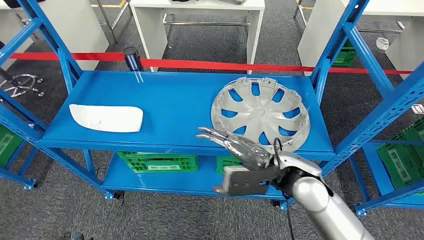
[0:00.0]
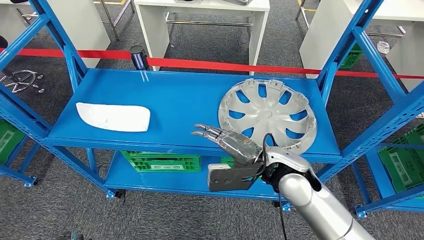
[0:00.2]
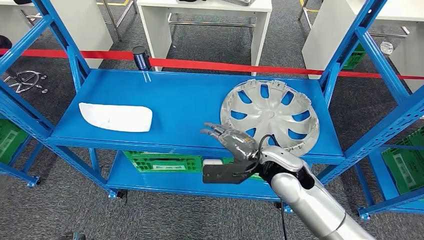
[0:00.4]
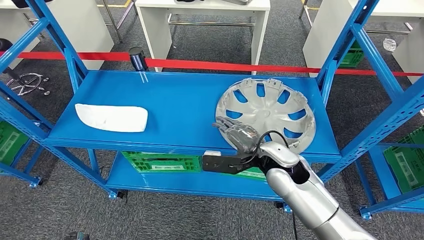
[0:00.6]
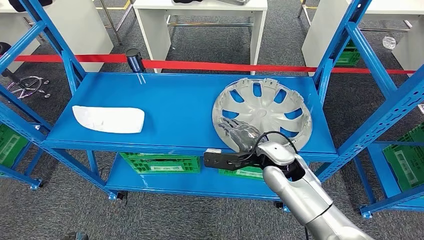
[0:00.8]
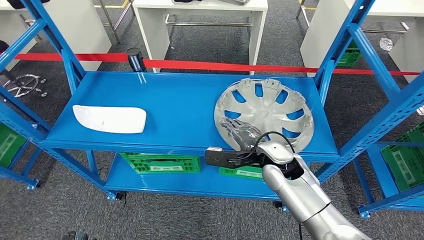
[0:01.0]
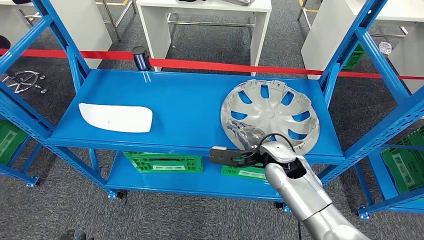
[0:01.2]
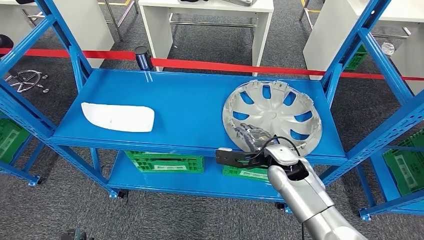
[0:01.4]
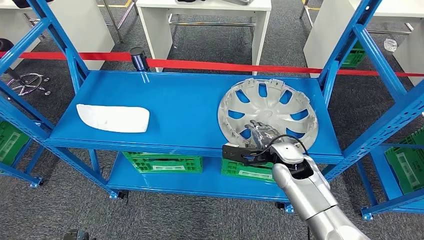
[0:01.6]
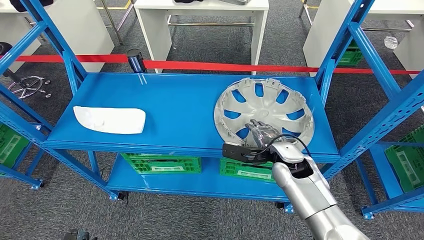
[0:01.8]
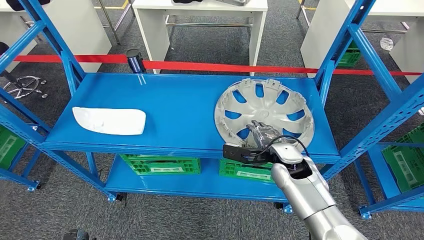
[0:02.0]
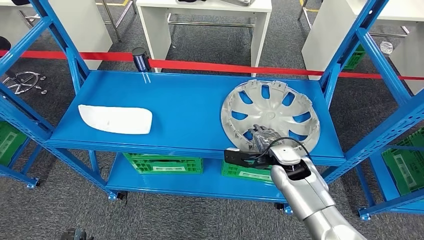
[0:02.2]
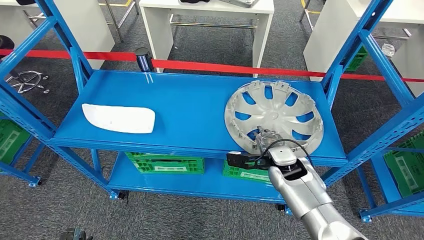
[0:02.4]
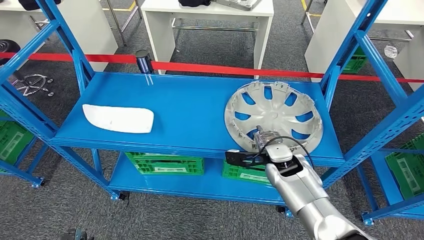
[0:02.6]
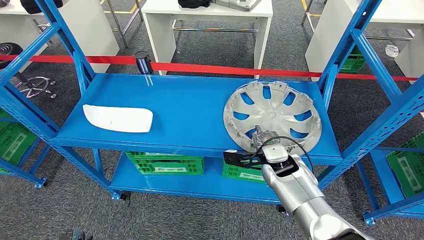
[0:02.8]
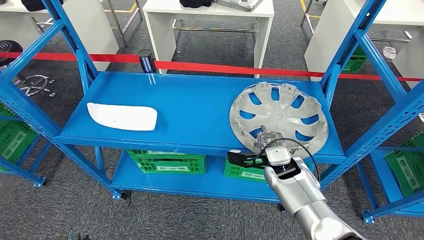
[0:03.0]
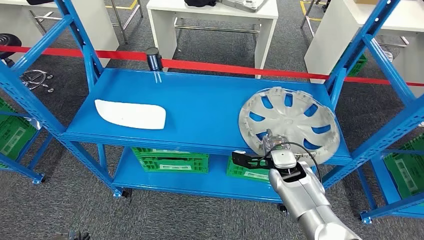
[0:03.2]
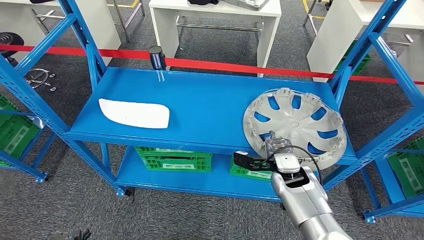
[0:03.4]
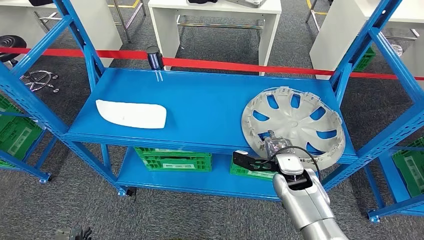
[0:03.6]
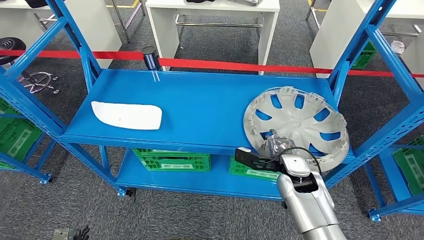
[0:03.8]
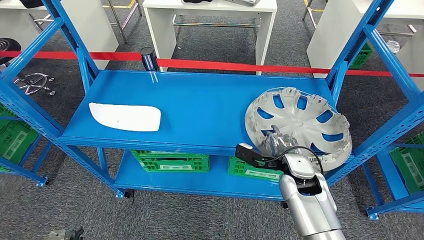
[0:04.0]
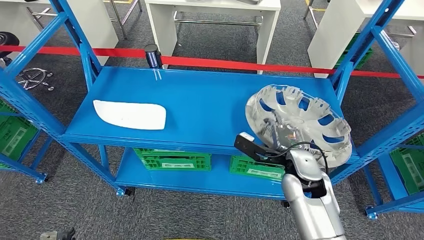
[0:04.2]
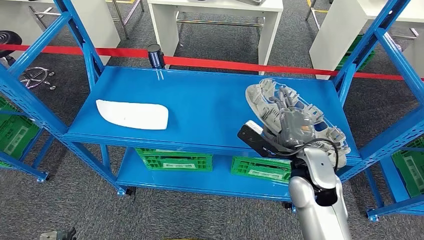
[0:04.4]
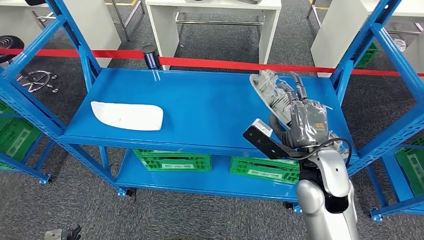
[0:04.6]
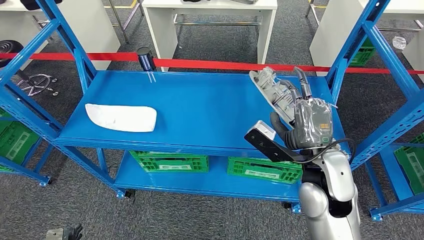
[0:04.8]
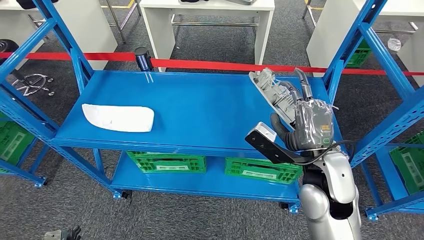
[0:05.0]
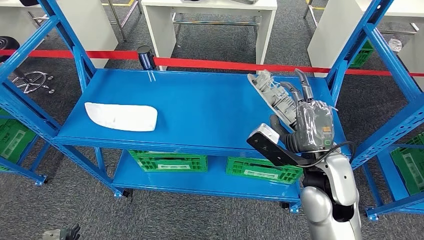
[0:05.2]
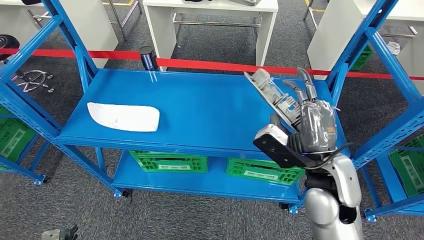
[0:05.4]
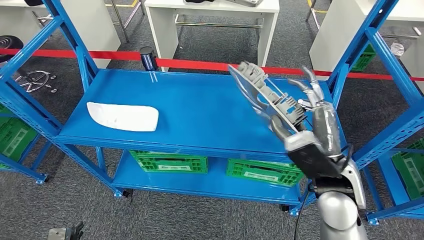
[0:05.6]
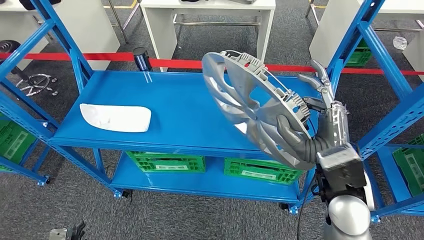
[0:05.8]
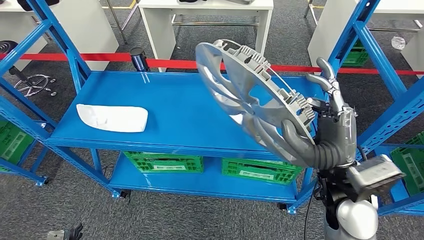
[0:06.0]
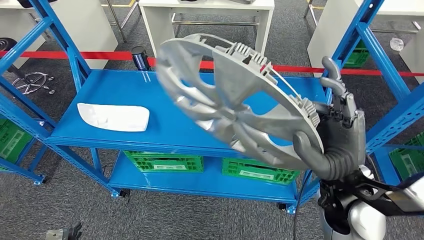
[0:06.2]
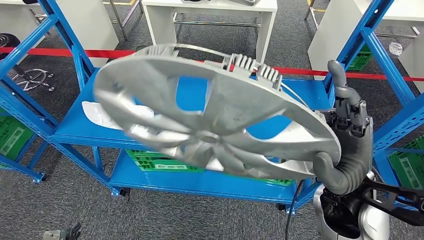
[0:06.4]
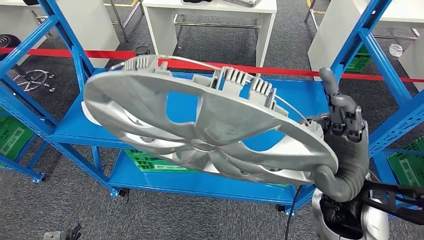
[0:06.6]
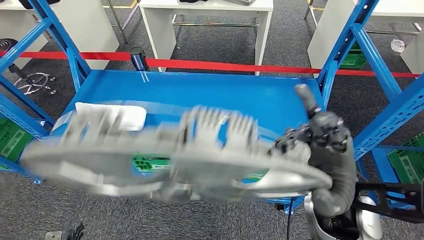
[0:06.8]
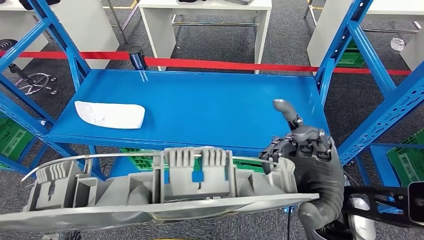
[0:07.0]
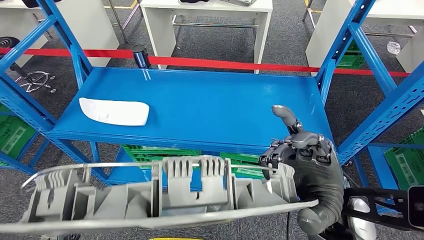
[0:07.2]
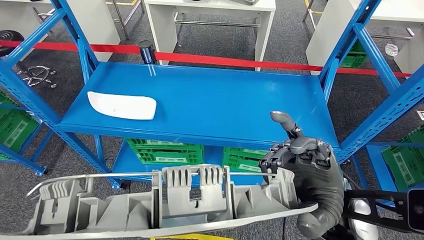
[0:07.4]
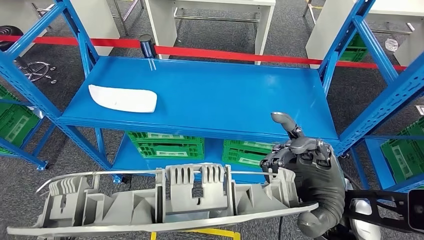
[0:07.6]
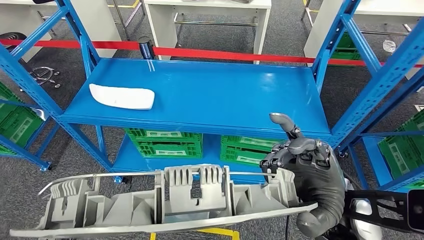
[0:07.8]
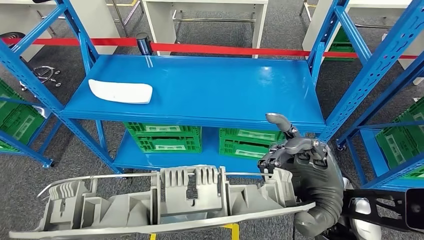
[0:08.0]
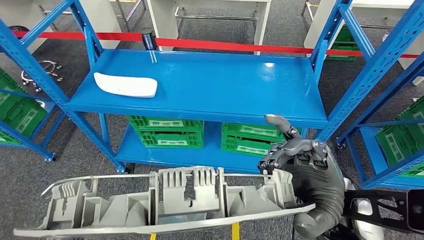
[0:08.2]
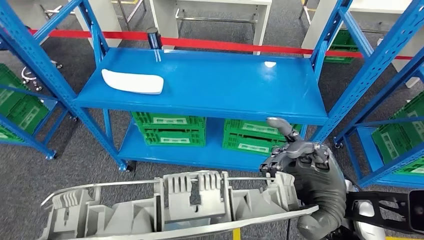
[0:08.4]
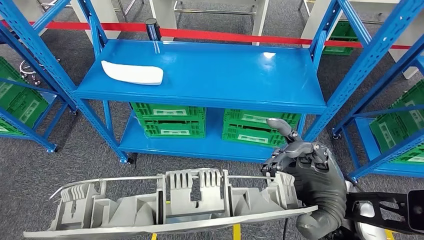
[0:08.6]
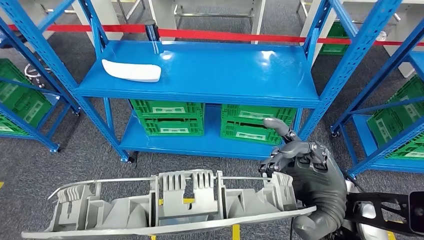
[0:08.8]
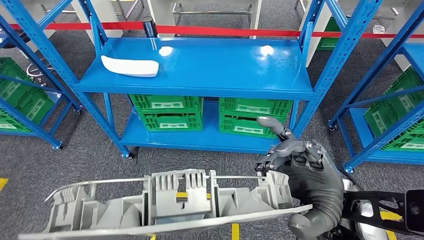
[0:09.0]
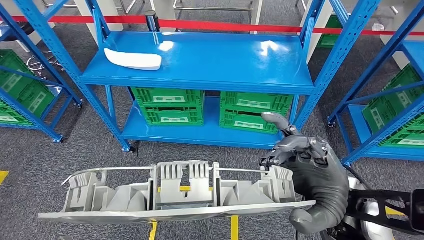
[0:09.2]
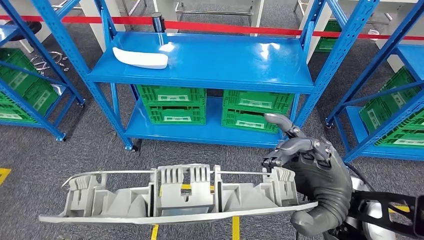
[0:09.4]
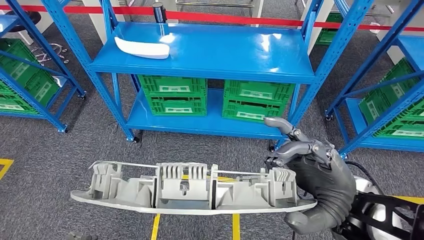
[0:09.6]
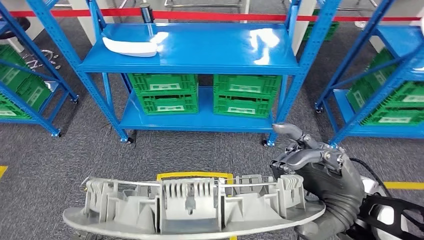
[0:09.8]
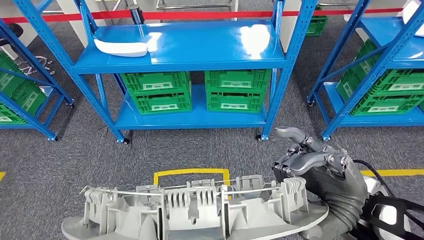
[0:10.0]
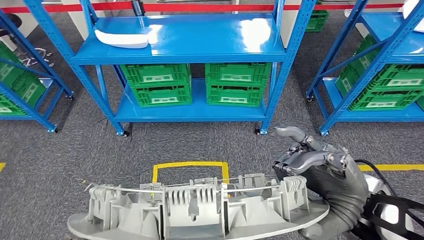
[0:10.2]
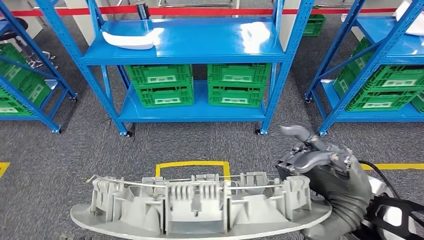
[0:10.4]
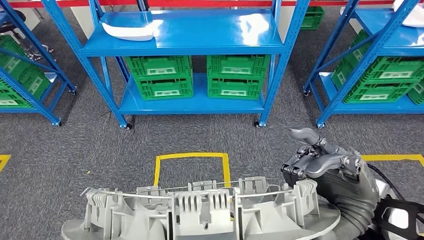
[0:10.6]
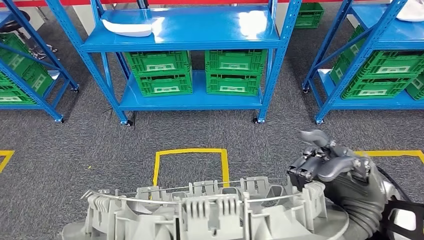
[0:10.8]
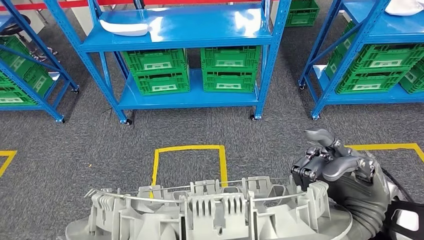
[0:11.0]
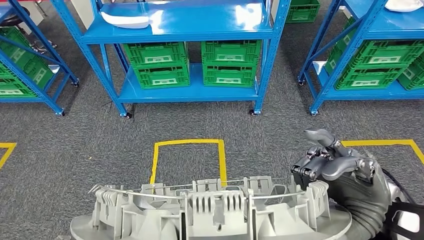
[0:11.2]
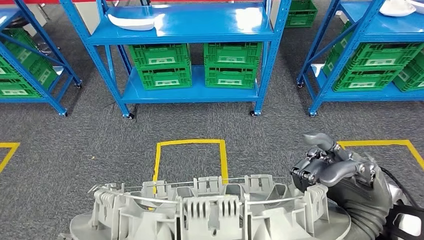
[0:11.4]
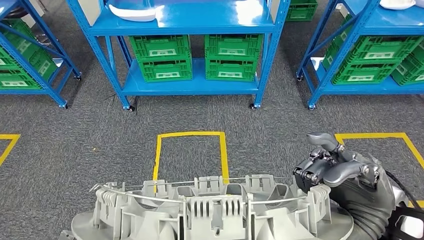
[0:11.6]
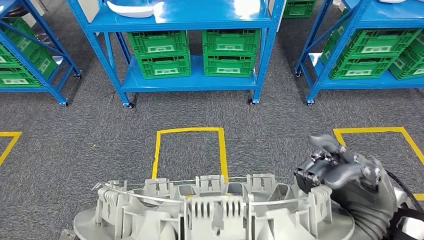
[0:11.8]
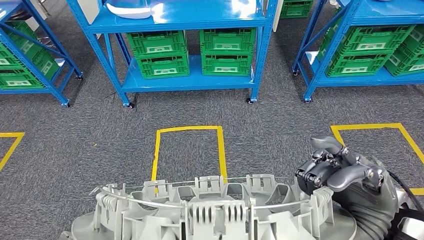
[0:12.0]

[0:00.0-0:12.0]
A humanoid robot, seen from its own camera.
Step, 0:00.0 to 0:05.6: Pick up the small component from the shelf.

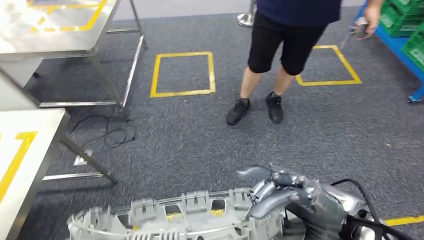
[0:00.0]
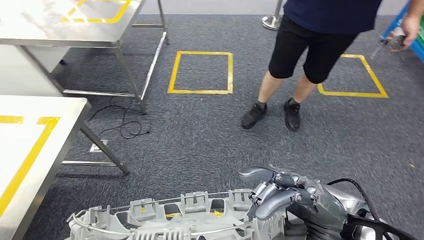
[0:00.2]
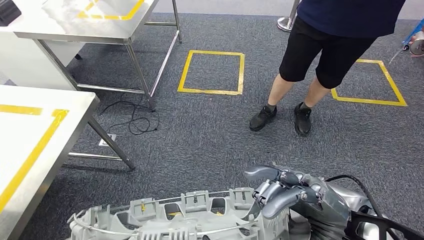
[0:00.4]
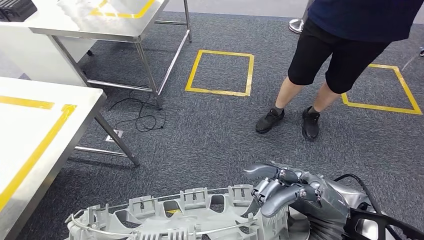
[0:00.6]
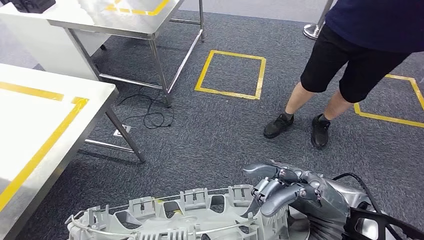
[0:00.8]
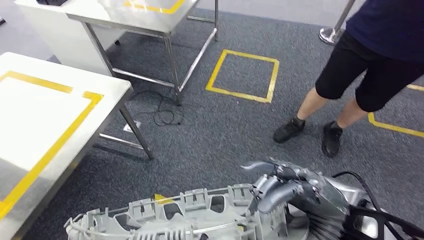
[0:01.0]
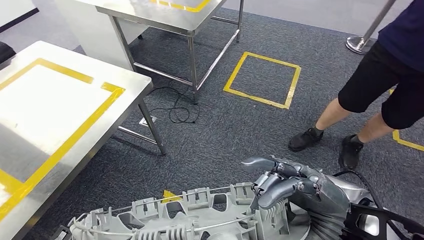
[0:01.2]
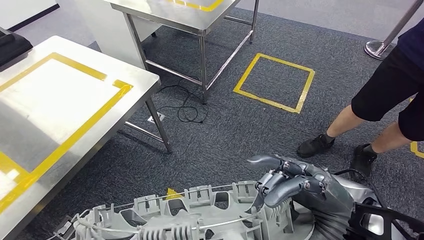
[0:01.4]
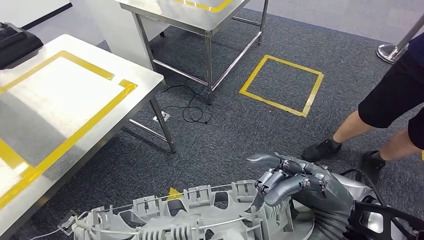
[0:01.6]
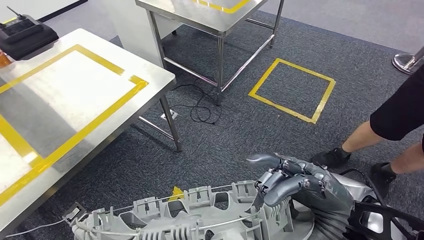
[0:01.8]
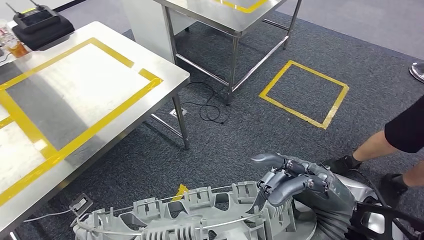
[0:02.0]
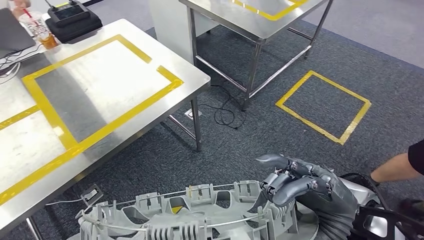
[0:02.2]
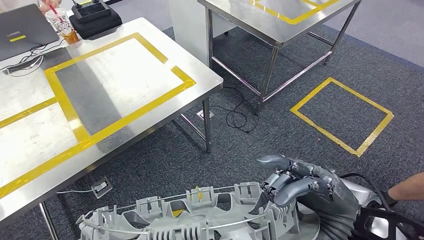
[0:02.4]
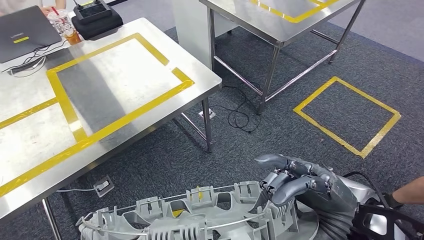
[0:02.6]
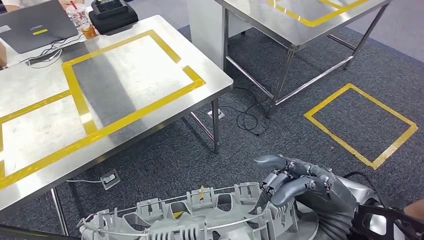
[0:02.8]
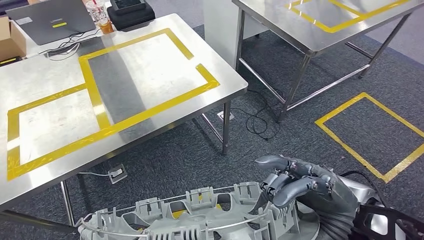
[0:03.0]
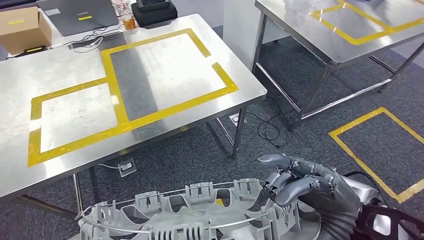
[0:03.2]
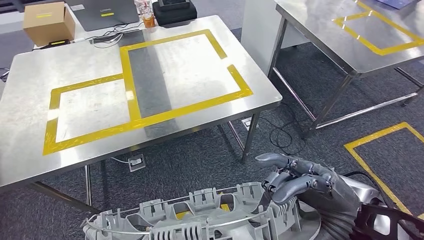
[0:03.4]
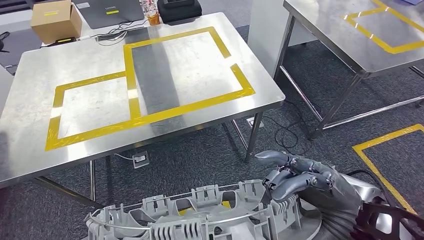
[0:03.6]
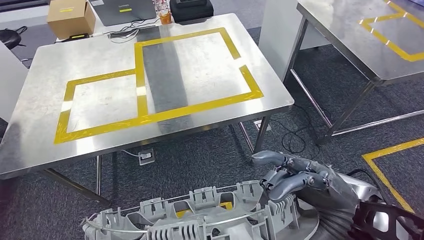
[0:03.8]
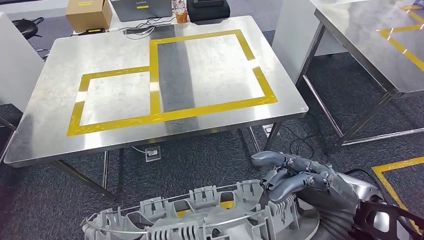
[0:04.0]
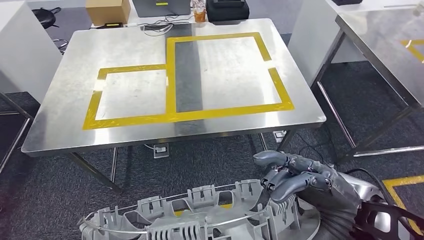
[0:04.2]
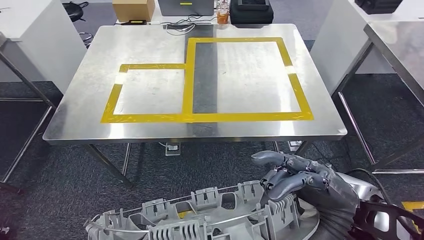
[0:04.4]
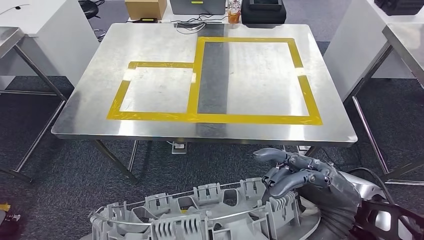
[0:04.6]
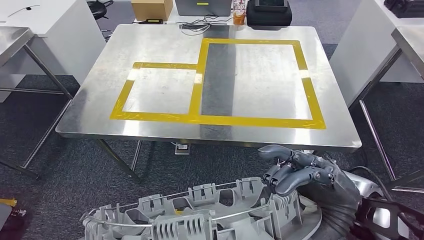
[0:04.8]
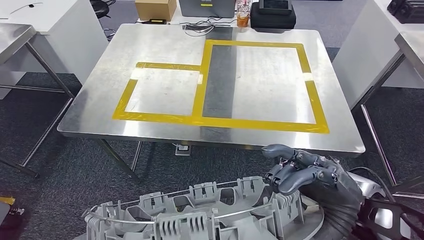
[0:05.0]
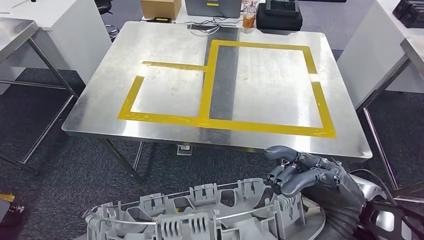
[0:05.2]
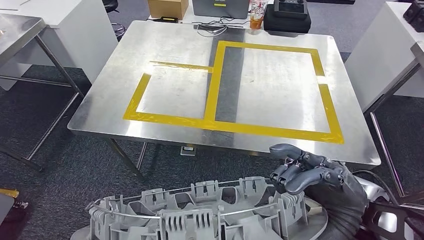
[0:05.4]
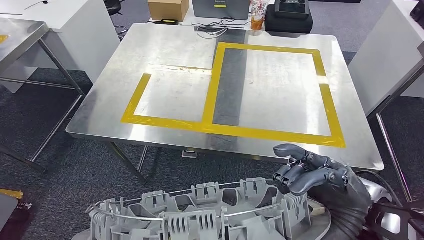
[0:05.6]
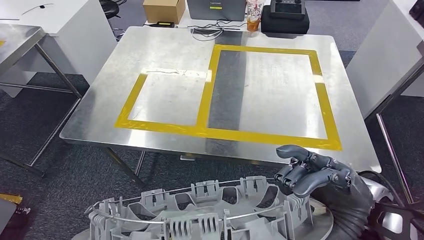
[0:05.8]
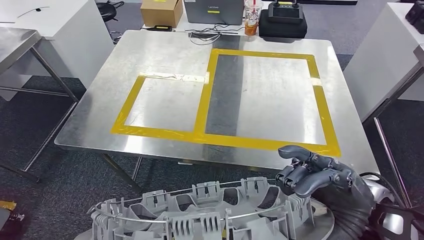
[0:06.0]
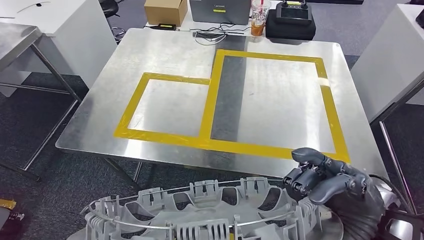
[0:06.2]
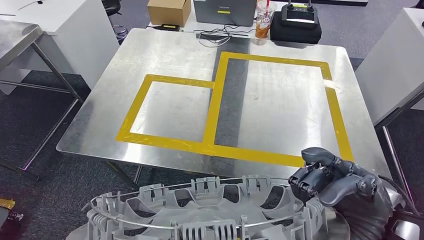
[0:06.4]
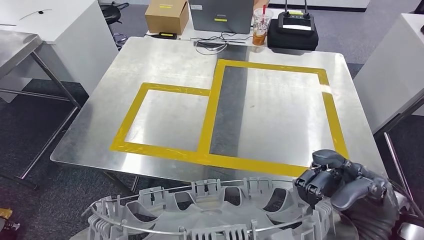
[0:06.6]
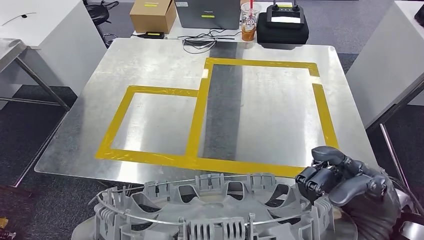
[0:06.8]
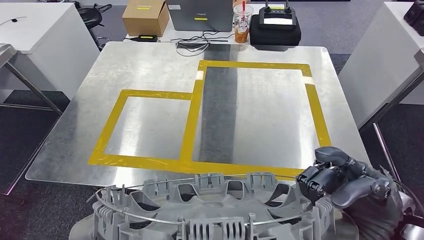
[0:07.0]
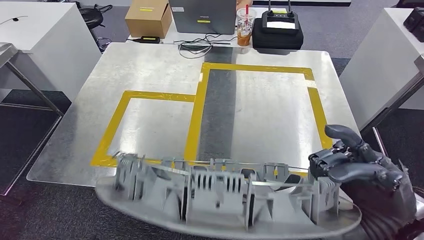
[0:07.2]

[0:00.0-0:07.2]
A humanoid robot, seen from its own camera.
Step, 0:00.0 to 0:03.0: Move the small component to the workbench.
